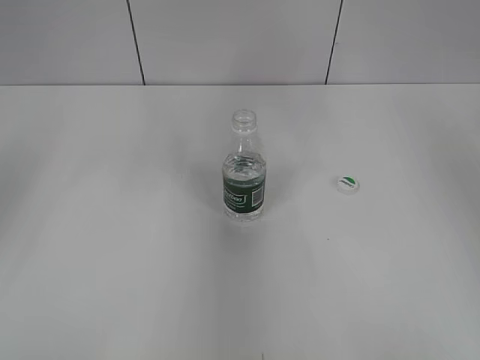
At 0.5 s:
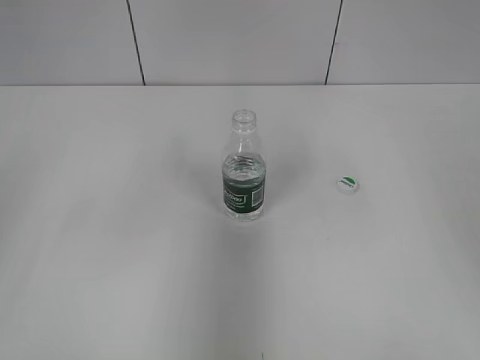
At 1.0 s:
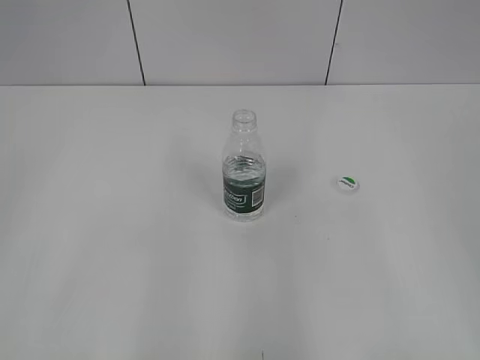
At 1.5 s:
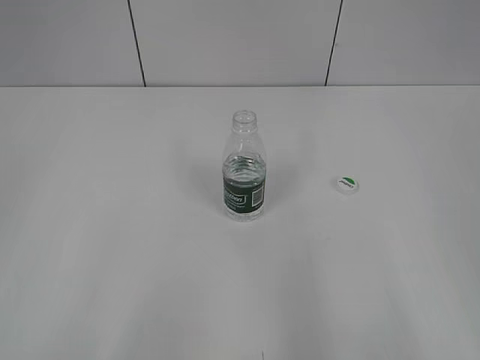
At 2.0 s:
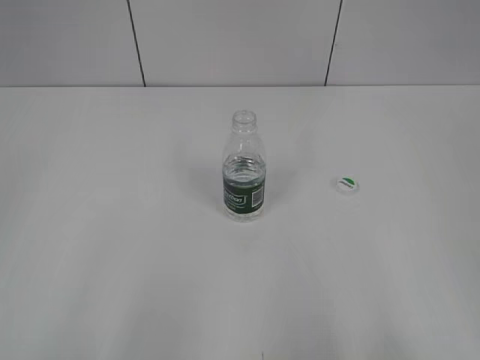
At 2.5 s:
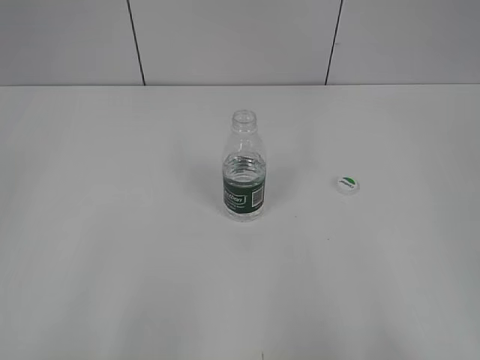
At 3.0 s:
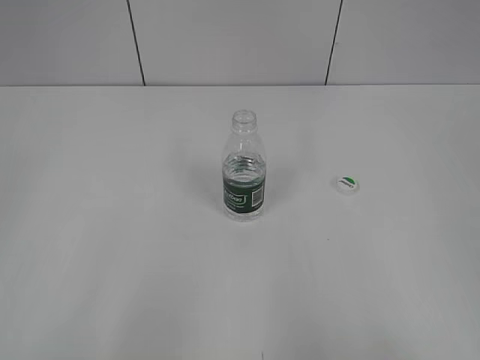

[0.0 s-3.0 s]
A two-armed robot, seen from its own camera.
0.0 to 1.5 s: The two grippers go some 30 cm backward.

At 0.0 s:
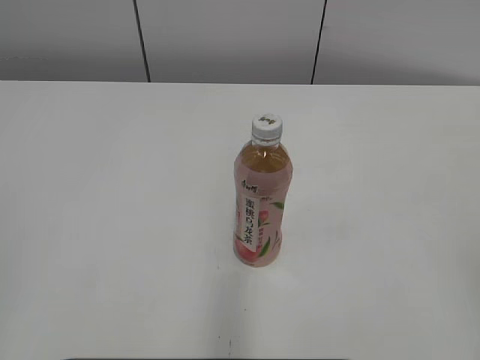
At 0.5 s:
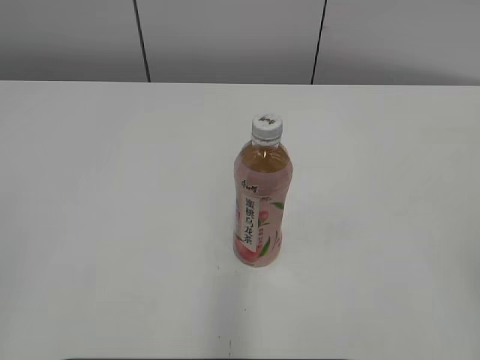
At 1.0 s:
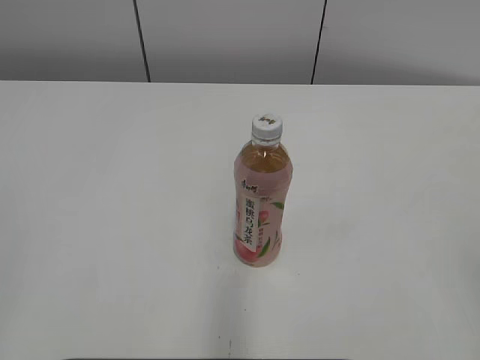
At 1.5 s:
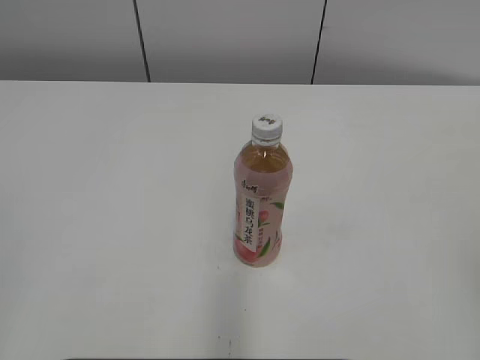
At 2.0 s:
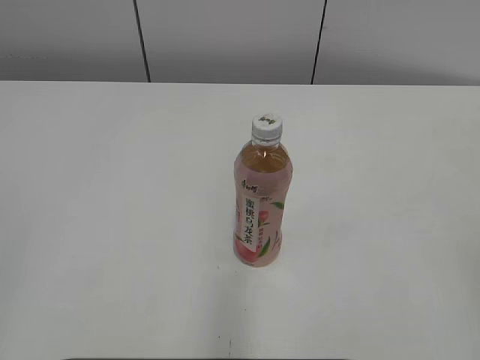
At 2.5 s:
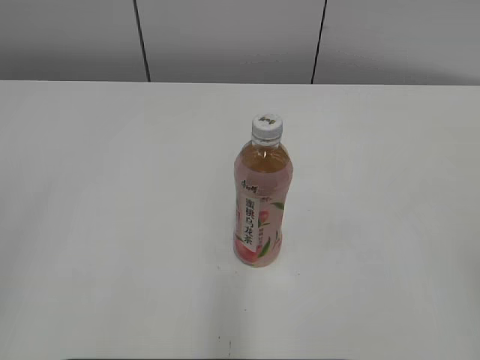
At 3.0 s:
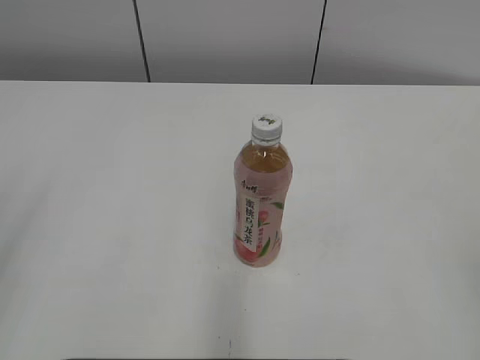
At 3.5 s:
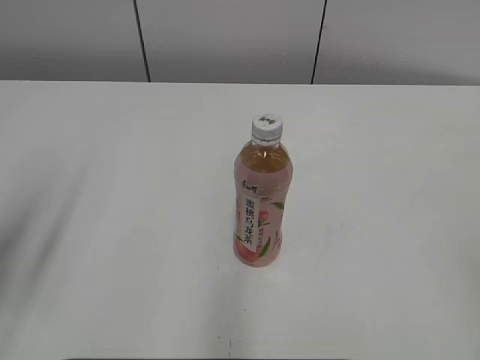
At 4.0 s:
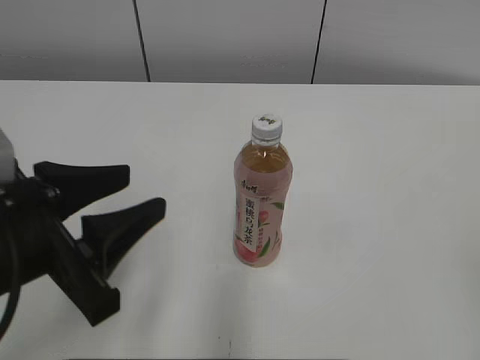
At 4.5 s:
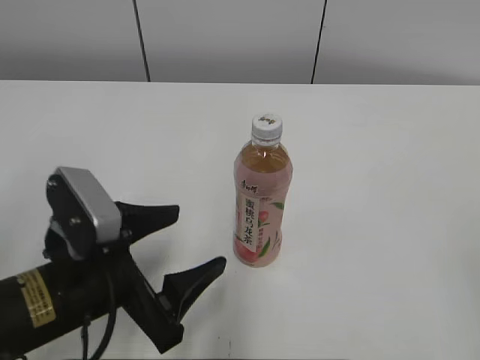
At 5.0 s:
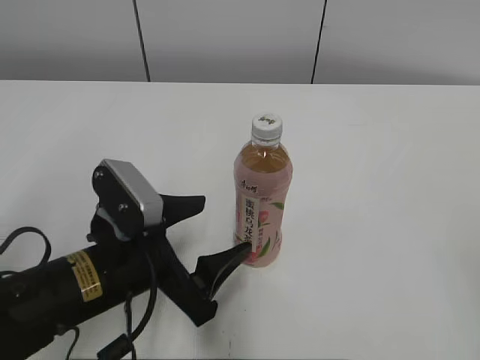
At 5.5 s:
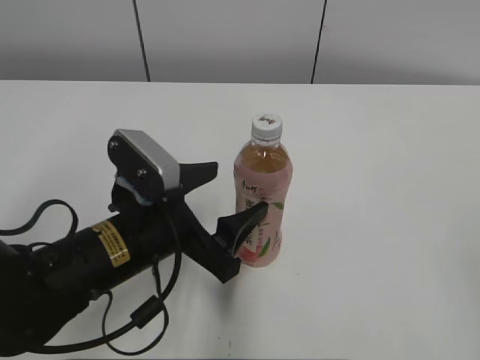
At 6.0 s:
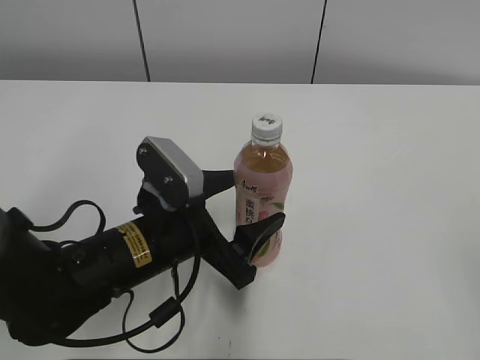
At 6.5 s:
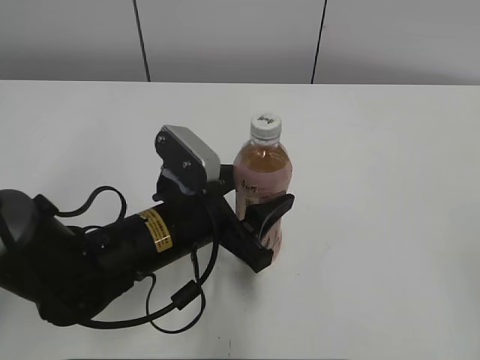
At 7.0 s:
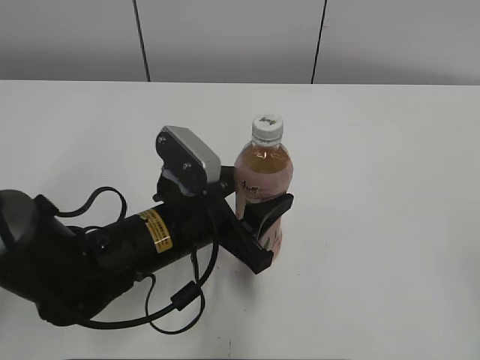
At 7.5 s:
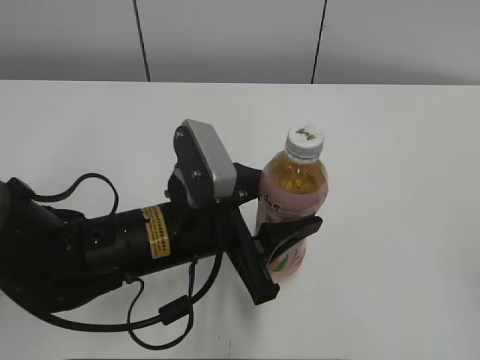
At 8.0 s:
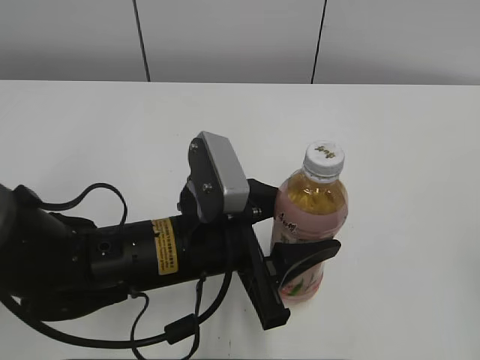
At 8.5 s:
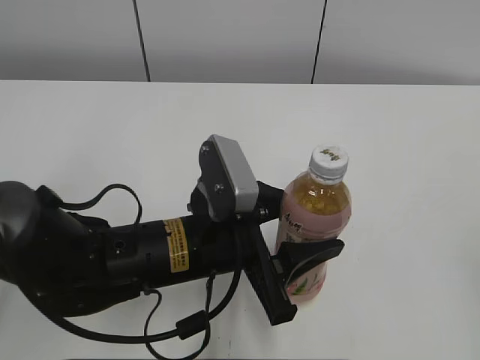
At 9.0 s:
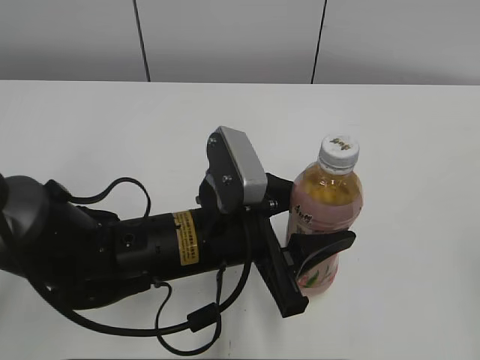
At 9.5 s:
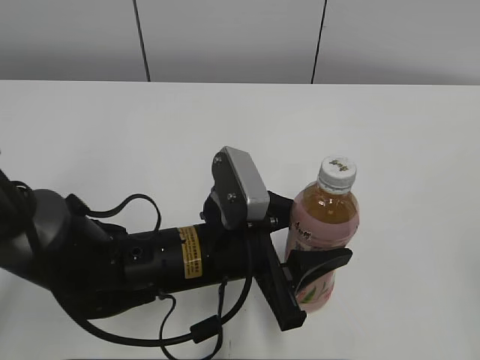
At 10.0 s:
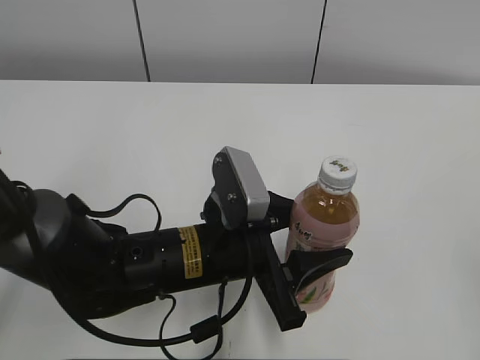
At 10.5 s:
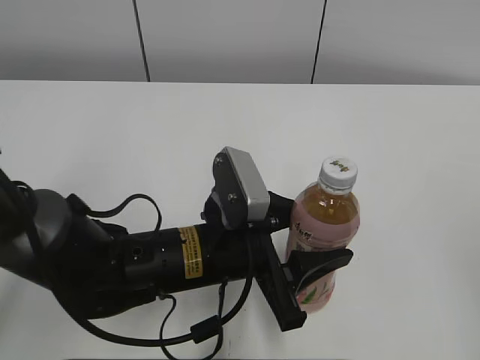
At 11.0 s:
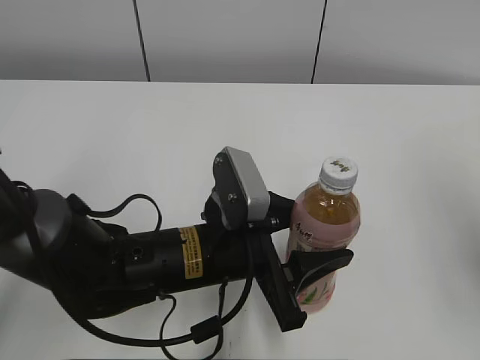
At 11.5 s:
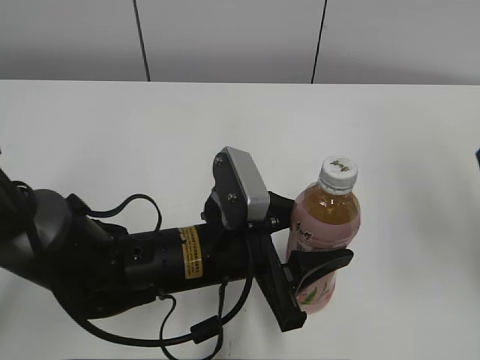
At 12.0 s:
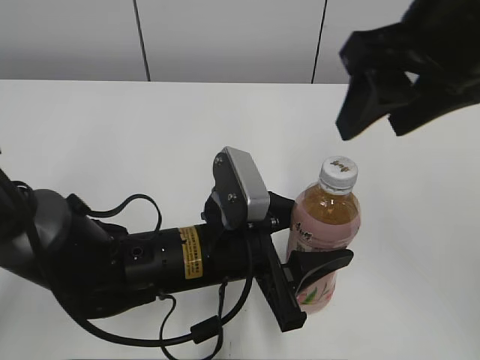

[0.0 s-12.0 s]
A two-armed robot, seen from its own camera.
Step, 0.0 to 6.5 s: Grab the Peach Oolong Tea with the left hand.
2.0 to 4.0 s: The left gripper goes some 25 cm forward, to the right and downward.
4.0 to 6.0 s: The left gripper heads to the right, downward and forward, covering approximately 15 cm, and opens.
6.0 to 8.0 s: The left gripper closes up.
8.0 to 10.0 s: The grippers make only small movements.
10.0 to 12.0 s: The right gripper goes roughly 30 cm forward and to the left.

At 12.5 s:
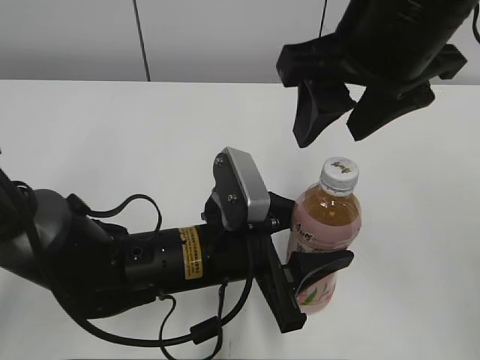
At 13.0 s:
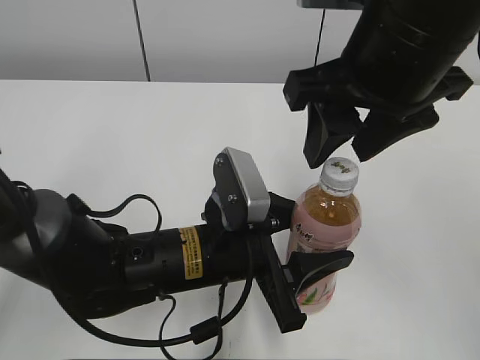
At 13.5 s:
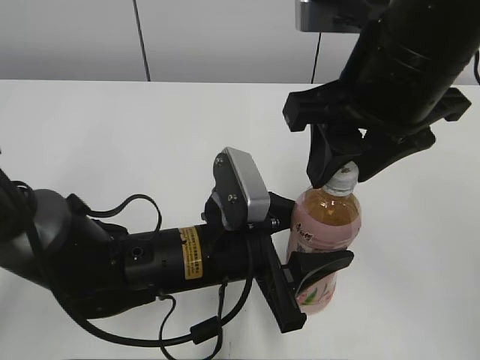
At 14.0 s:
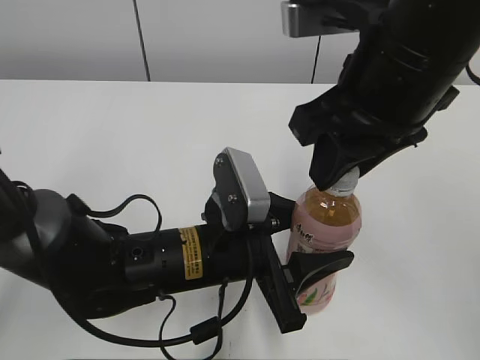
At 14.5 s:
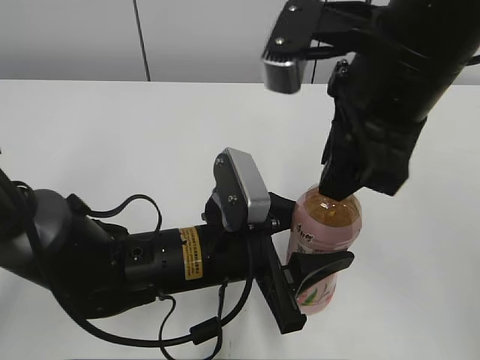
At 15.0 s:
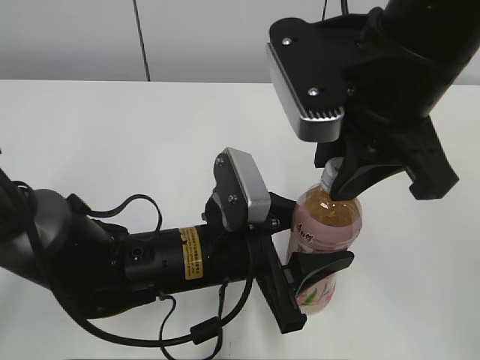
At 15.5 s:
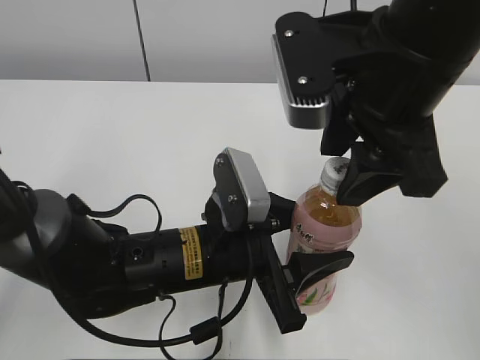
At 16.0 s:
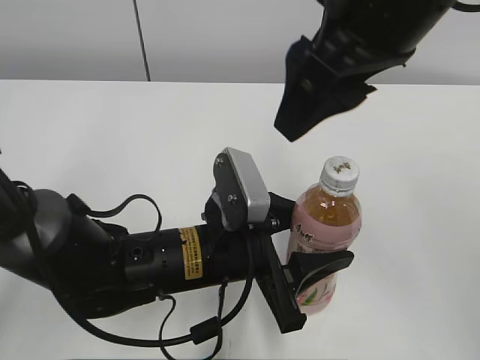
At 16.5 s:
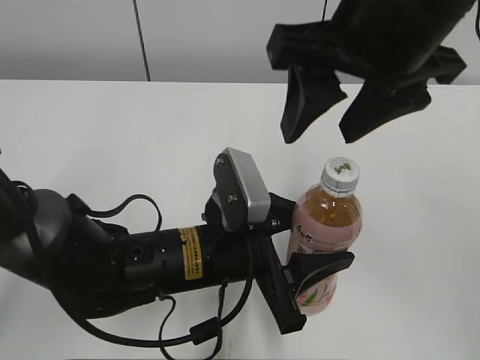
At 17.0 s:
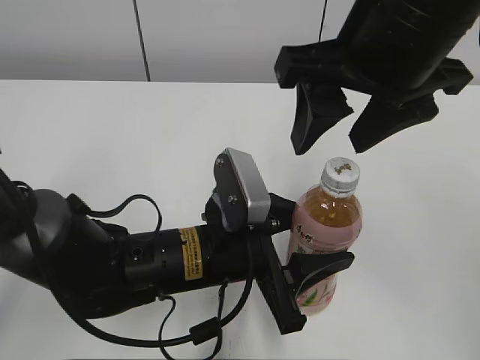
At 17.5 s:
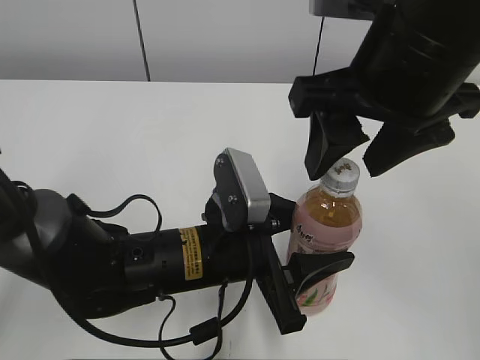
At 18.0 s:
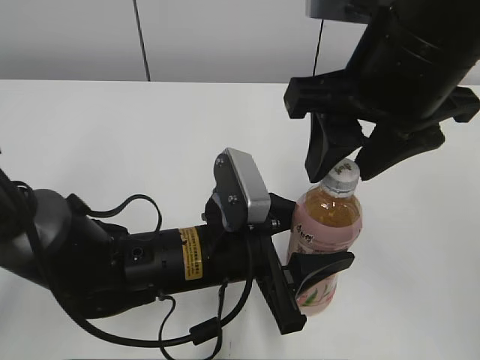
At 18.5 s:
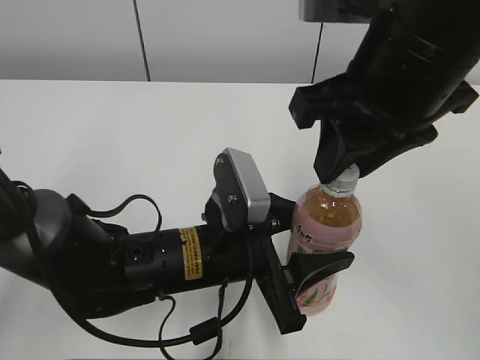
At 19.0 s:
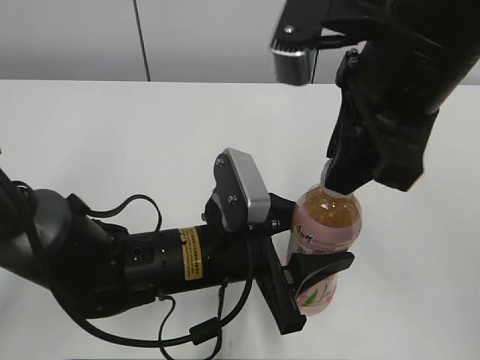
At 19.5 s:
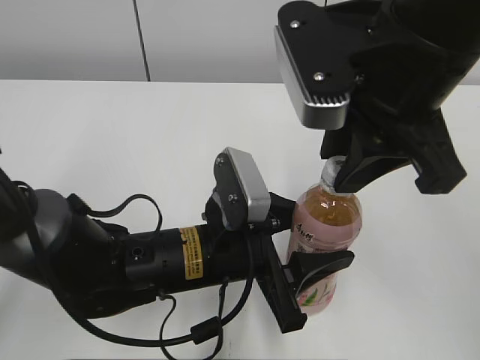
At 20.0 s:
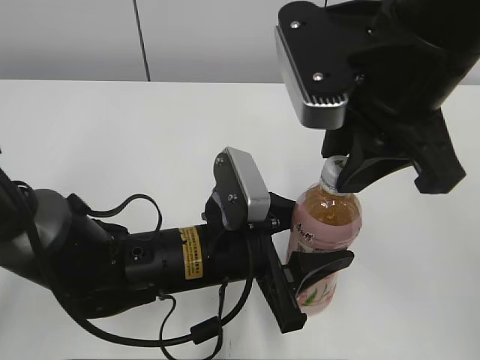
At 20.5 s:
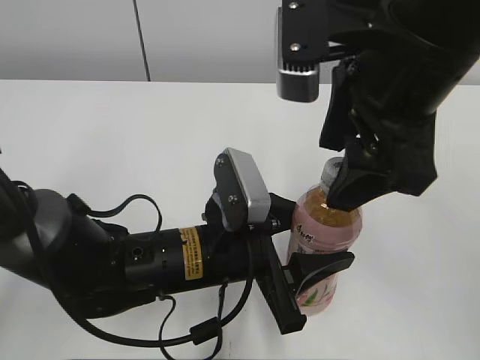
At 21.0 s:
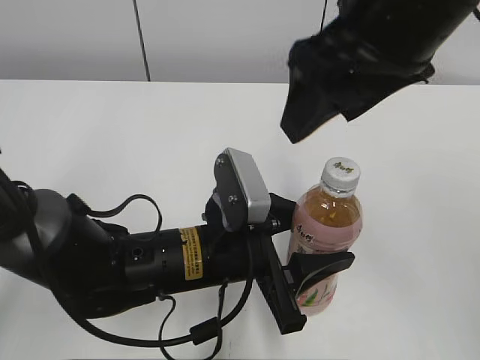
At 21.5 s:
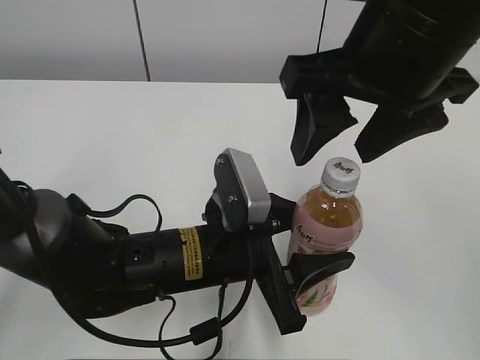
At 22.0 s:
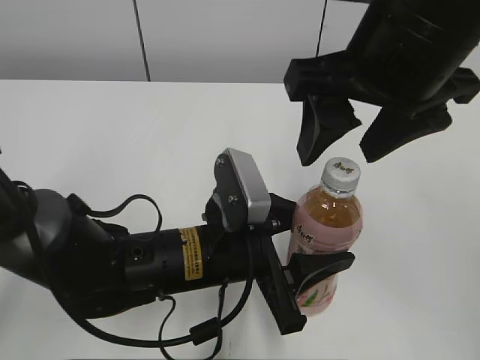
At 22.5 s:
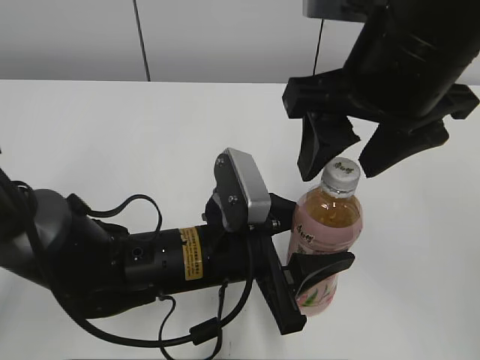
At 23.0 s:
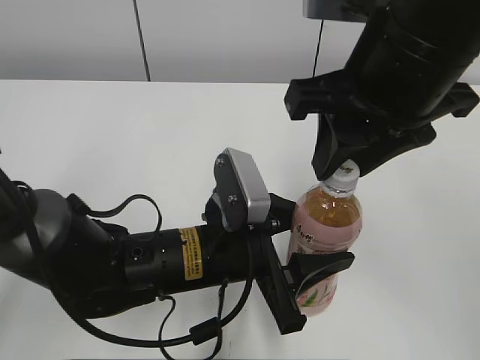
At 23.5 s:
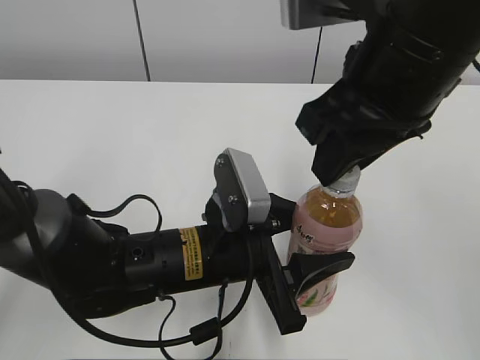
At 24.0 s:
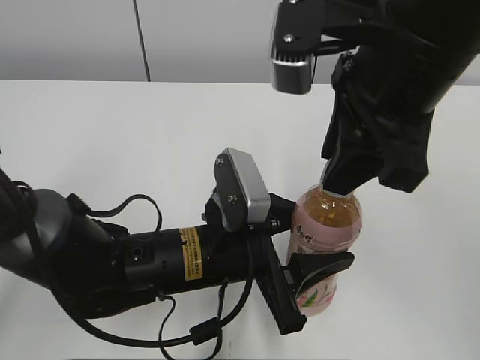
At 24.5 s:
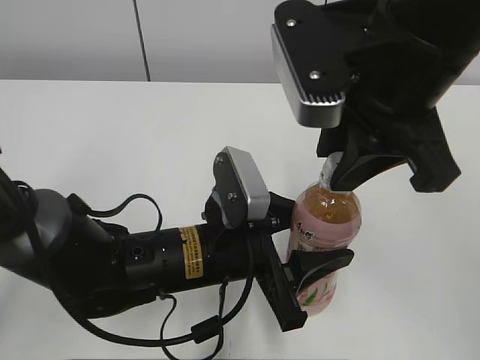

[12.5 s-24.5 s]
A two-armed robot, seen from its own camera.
12.5 to 14.5 s: The right gripper closes its fingers.
14.5 to 16.5 s: The right gripper opens its fingers.
16.5 to 18.5 s: The right gripper closes up.
18.5 to 20.5 s: The right gripper opens its fingers.
22.5 to 24.5 s: The right gripper closes.
